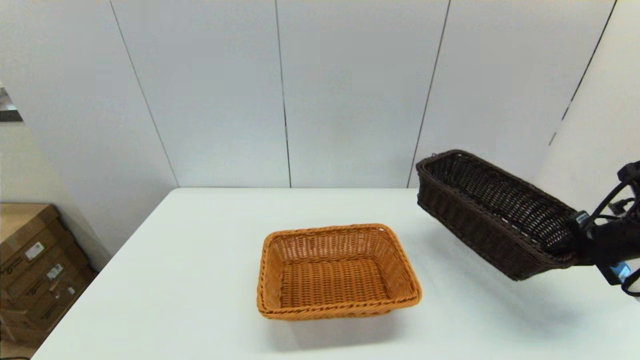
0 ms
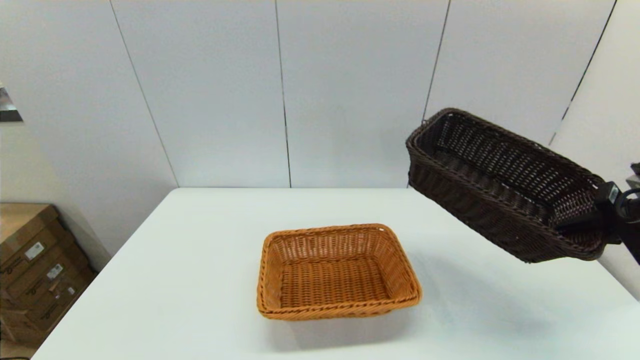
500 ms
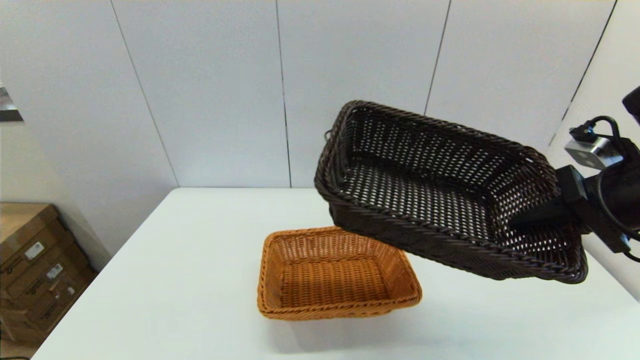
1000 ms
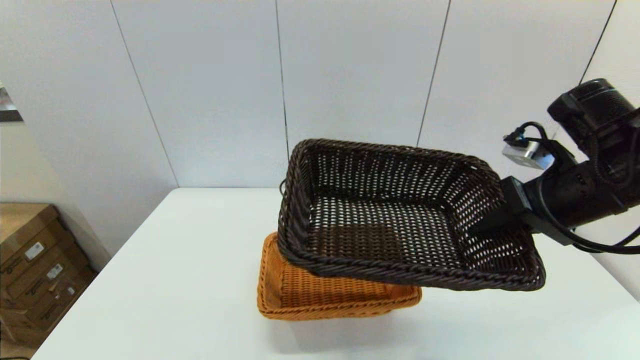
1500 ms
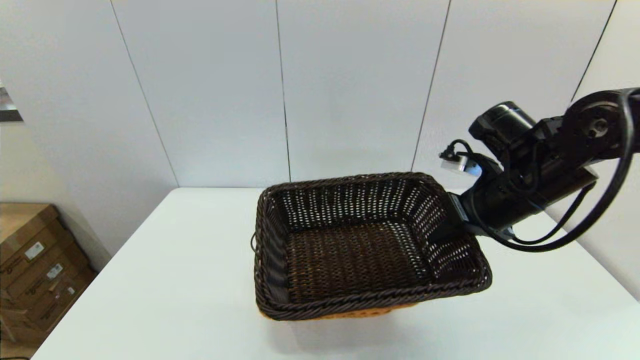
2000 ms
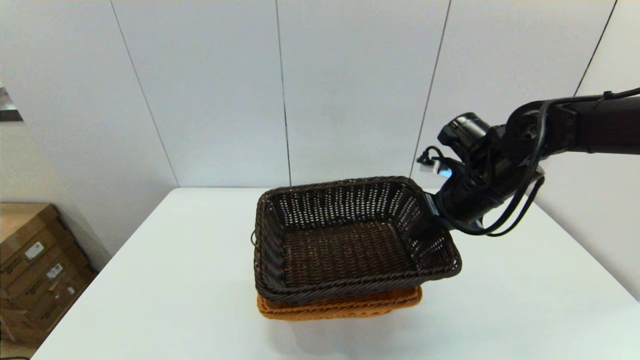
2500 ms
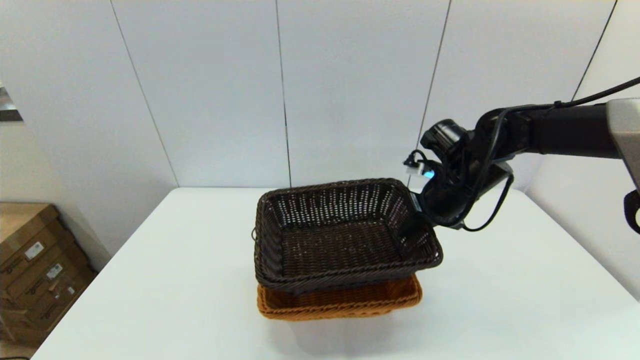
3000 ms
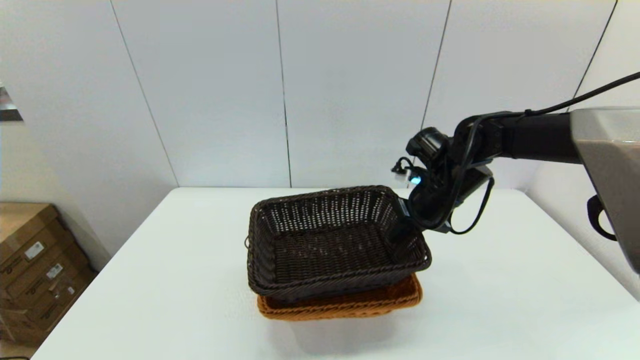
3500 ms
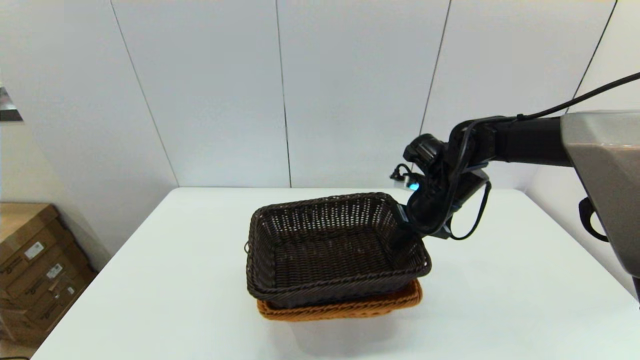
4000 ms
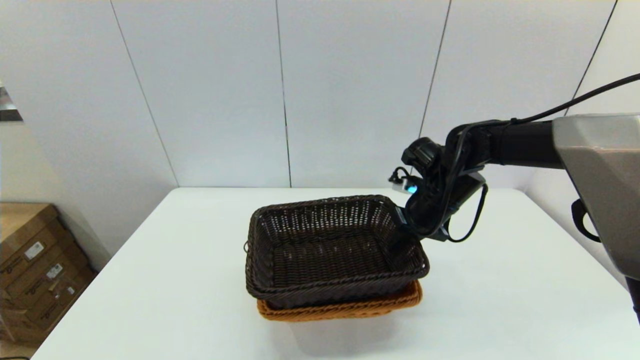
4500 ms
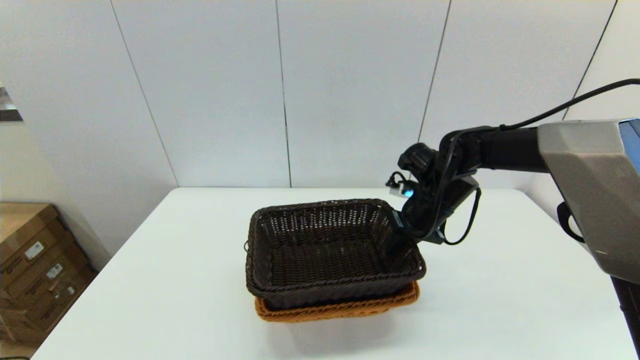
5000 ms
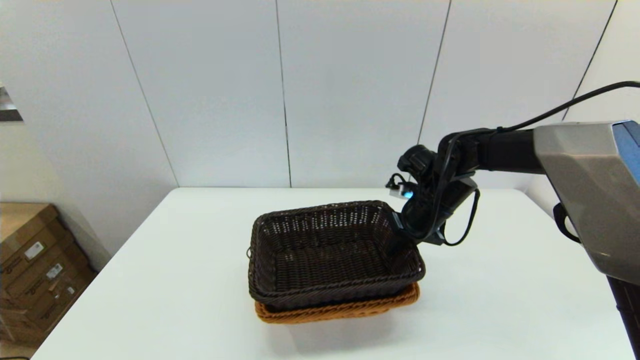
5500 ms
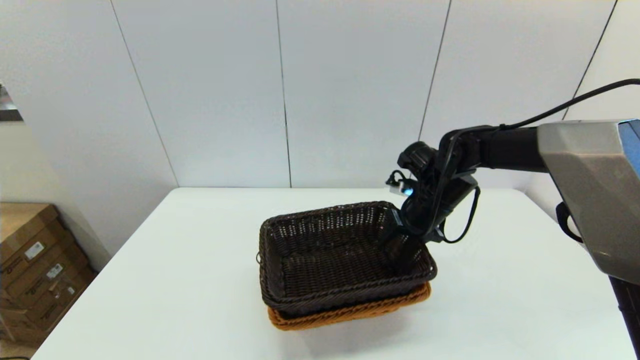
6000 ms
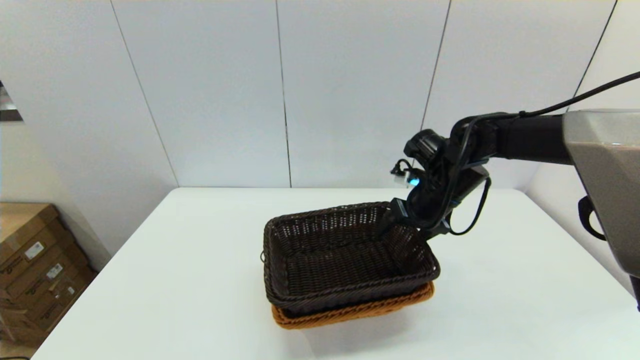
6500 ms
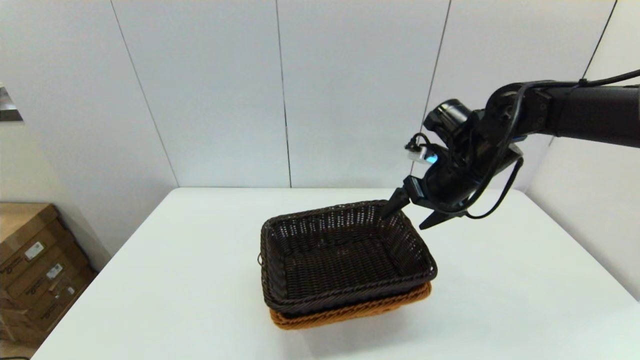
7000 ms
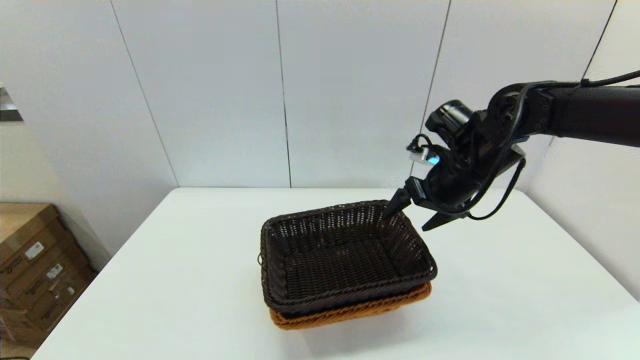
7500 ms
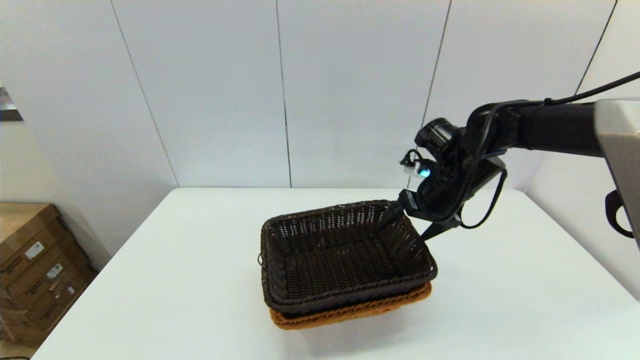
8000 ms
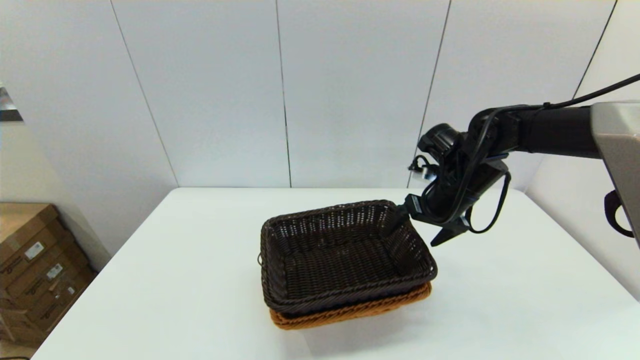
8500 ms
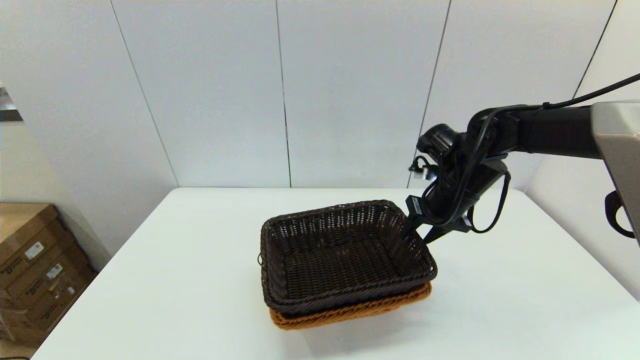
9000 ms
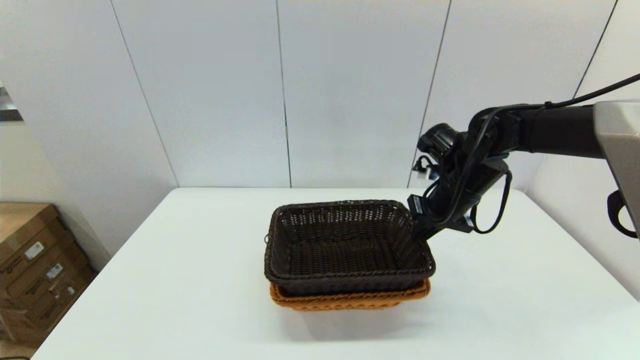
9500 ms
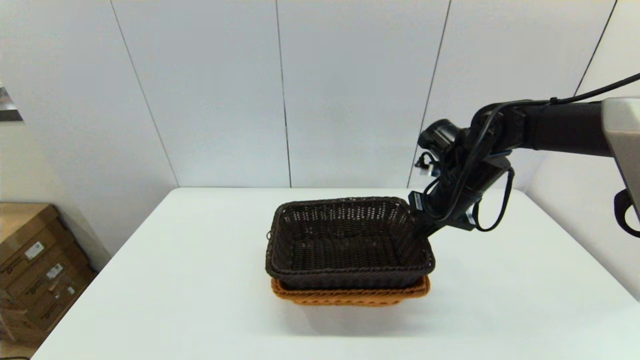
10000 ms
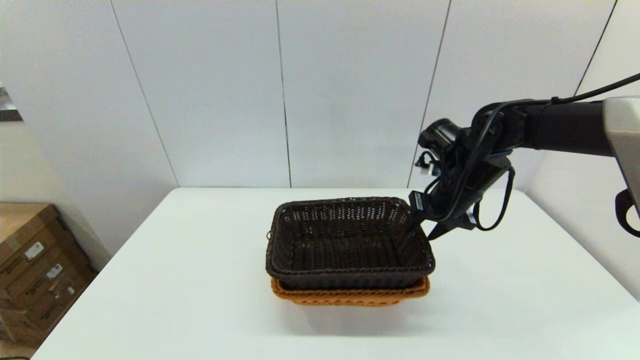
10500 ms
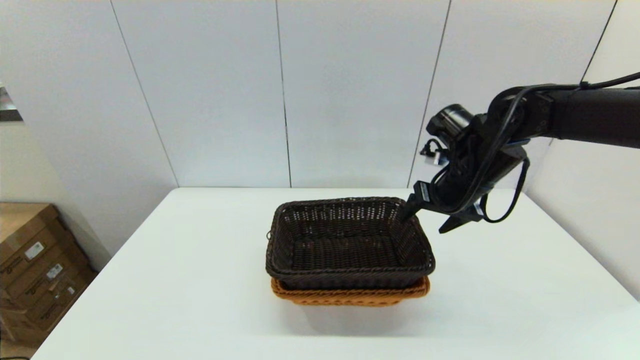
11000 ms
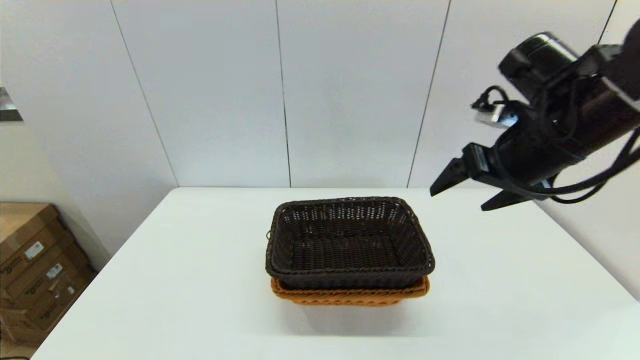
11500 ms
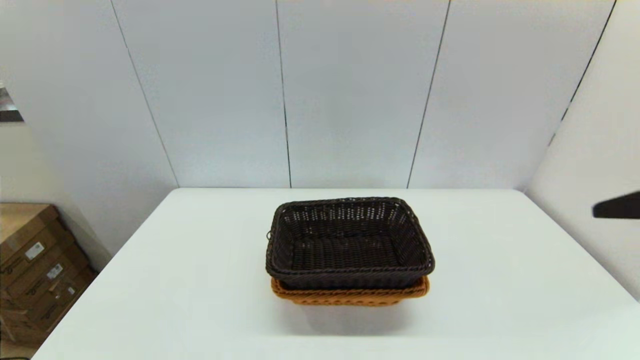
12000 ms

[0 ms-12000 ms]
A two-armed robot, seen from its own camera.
Task of the whole recording: stack a basket on top of another basket.
Step, 0 ms to 11500 ms: Place the dark basket into the light color basket with the right gripper.
0 ms to 2000 ms: The right gripper moves to the left, about 20 cm.
2000 ms to 4000 ms: The right gripper goes roughly 10 cm forward and downward.
4000 ms to 6000 ms: The right gripper opens.
6000 ms to 8000 ms: The right gripper opens its fingers.
8000 ms to 10000 ms: The right gripper closes.
10000 ms to 12000 ms: The right gripper moves backward and upward, some 30 cm, and opens up.
